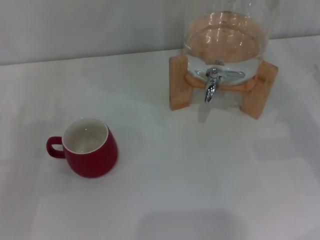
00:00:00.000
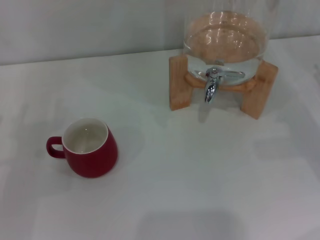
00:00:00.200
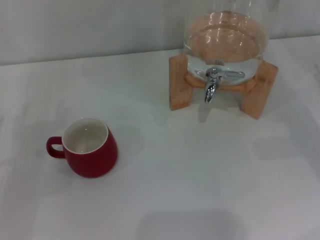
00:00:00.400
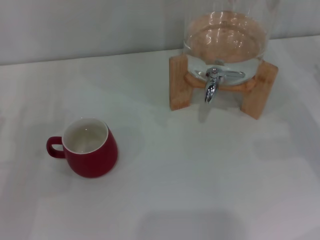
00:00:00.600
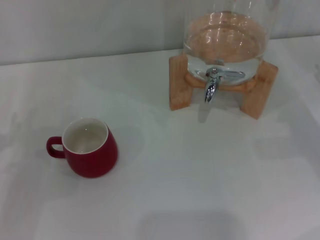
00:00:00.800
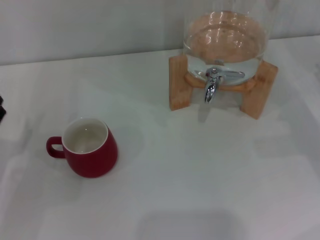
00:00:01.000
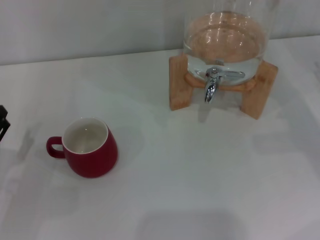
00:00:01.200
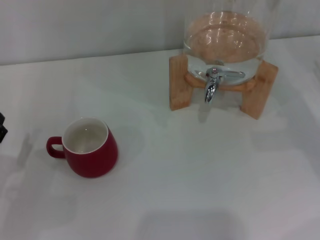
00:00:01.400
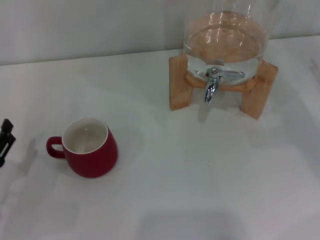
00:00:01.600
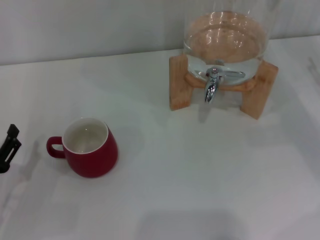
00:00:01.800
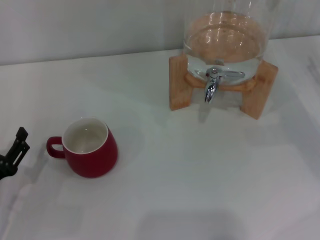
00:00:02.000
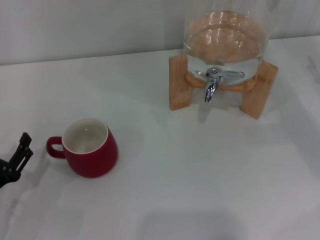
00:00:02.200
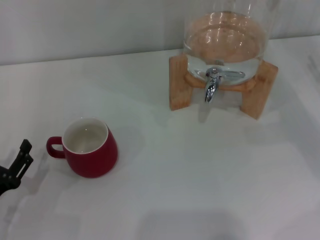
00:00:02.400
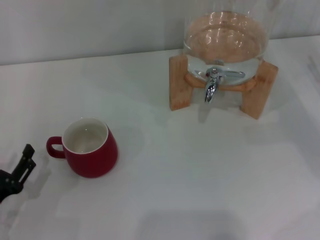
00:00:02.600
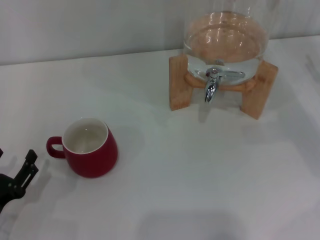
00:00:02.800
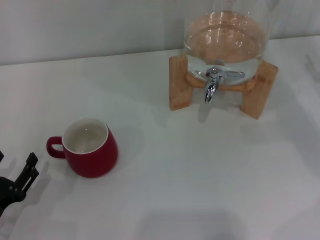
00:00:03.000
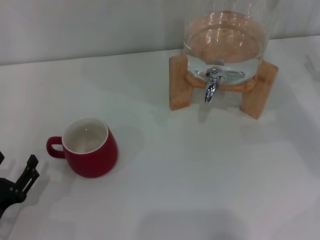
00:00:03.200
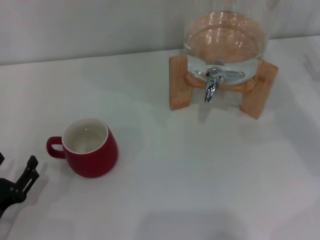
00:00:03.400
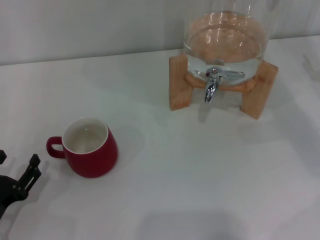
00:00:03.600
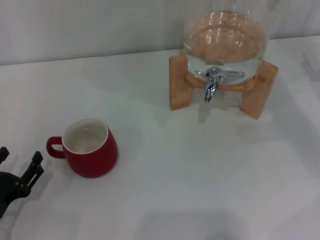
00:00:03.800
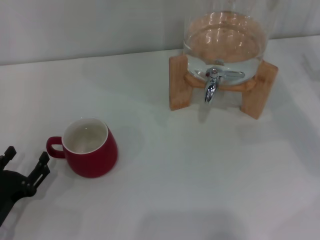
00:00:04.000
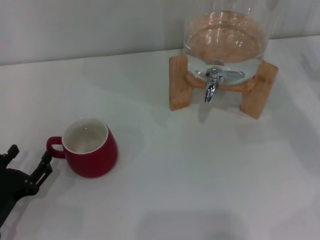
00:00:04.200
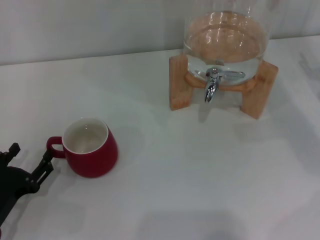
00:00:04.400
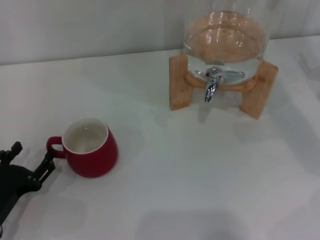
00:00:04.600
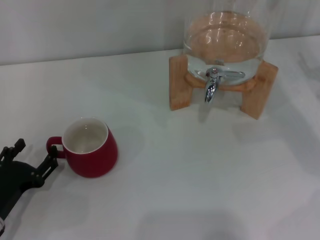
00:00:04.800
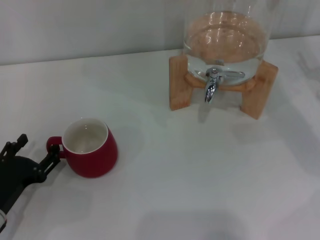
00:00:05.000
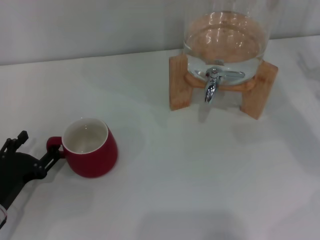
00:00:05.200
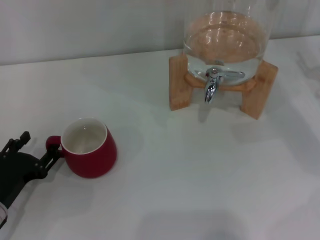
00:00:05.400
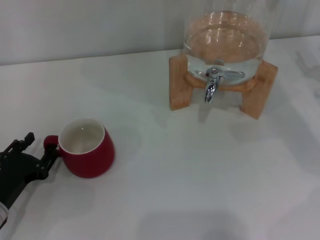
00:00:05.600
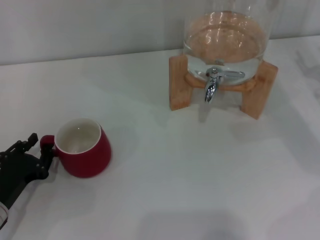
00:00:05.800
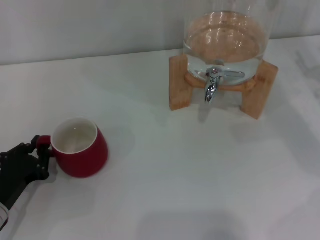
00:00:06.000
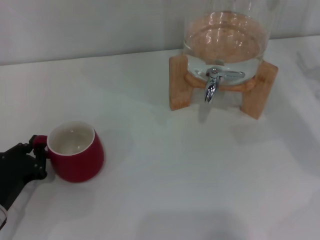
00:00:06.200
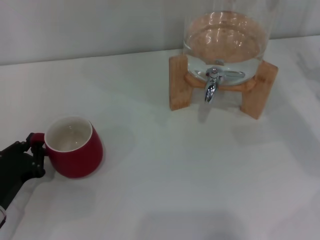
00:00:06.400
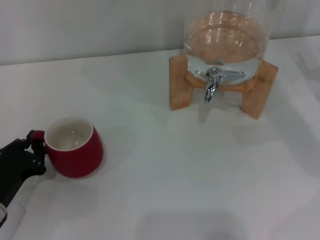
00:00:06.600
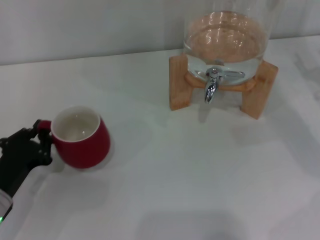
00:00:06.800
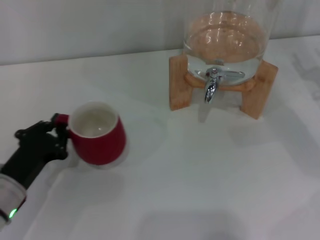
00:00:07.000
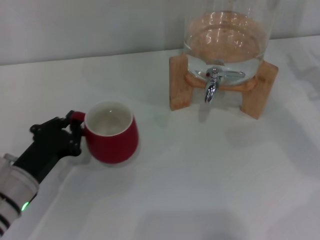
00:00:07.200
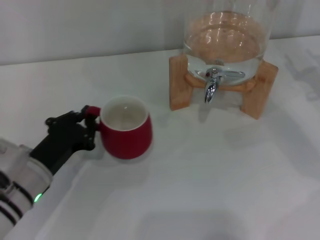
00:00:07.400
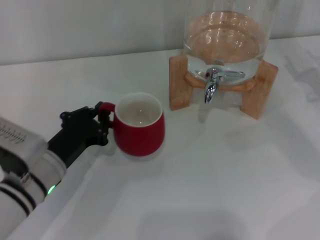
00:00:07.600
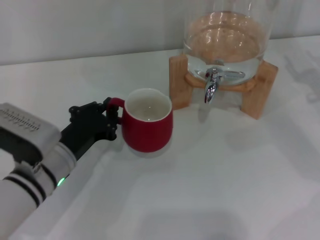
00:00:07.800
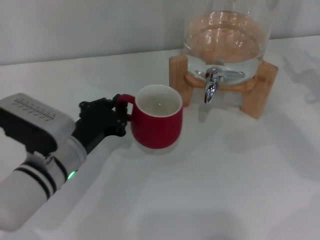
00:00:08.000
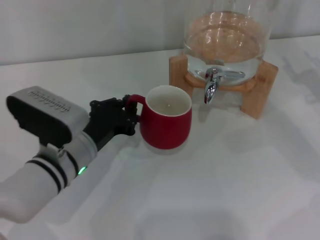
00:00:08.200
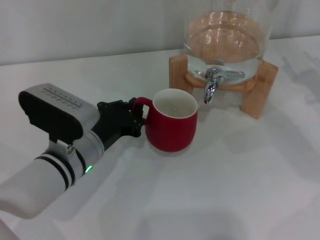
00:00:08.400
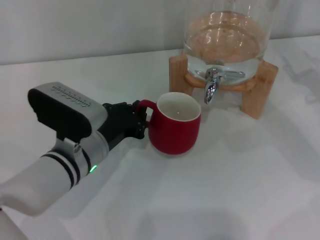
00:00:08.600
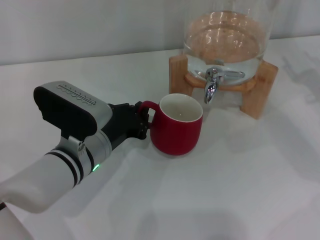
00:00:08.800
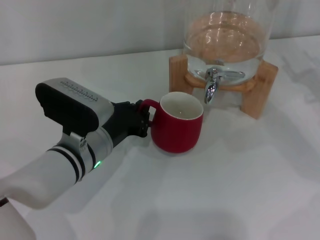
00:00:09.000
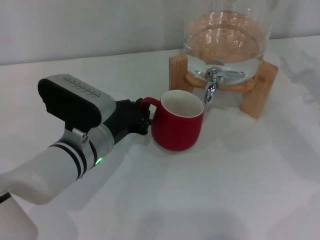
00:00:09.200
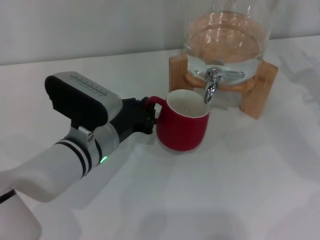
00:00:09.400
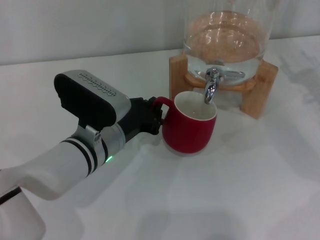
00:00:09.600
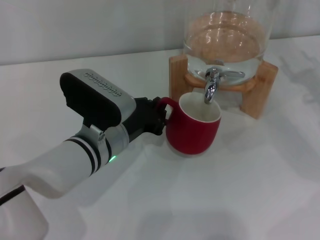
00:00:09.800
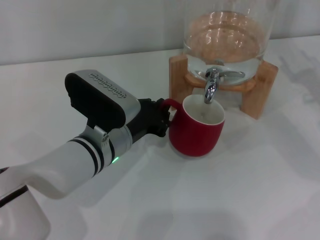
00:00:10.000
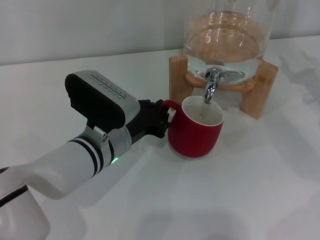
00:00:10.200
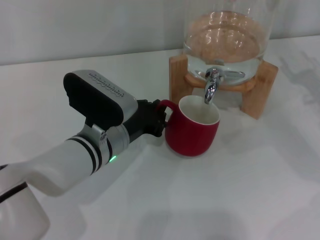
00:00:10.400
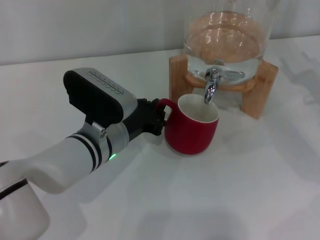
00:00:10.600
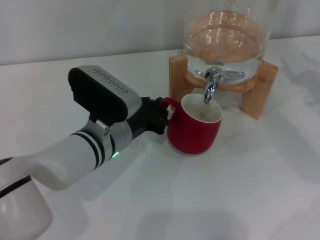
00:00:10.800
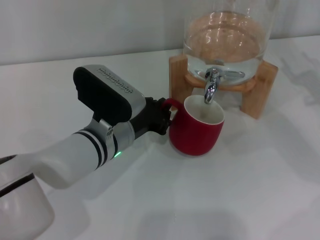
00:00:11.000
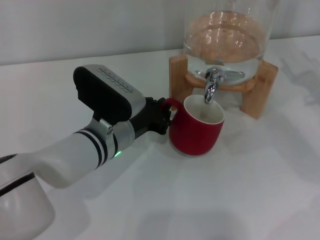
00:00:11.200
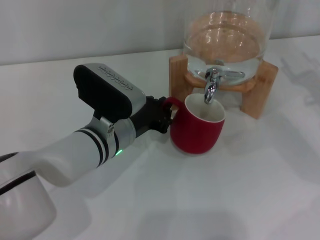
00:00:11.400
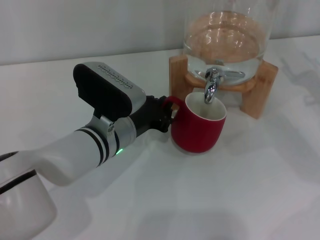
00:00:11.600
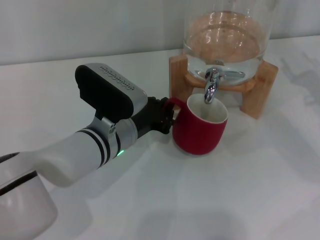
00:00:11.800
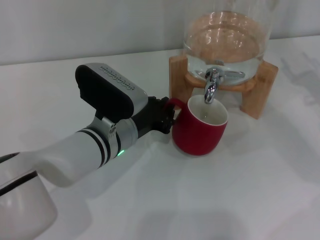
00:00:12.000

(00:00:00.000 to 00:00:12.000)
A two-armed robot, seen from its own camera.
Task of the whole recording: the left gripper pick up the red cup and place it horizontally under the faucet, the right gripper turn on the faucet to fill the cup, and then turn off the faucet.
00:00:01.600 - 00:00:04.400: The grippers make only small movements.
00:00:04.400 - 00:00:06.000: The left gripper closes up.
00:00:06.000 - 00:00:07.600: The left gripper travels to the right by approximately 10 cm, and closes.
00:00:07.600 - 00:00:09.000: The left gripper shifts roughly 5 cm to the right.
00:00:09.000 - 00:00:10.400: The grippers stay close to where they were, moving slightly.
00:00:10.400 - 00:00:12.000: Both grippers stay put.

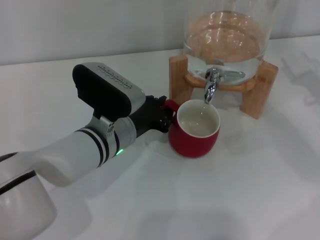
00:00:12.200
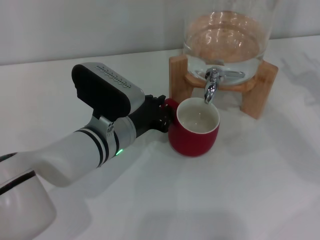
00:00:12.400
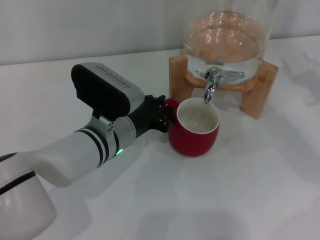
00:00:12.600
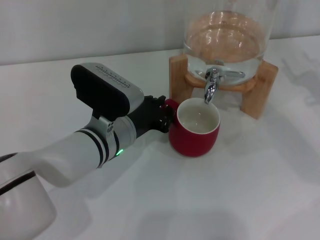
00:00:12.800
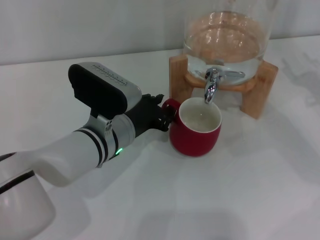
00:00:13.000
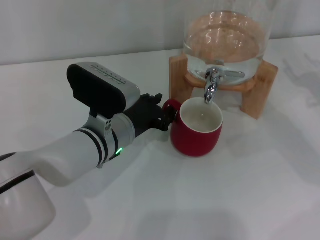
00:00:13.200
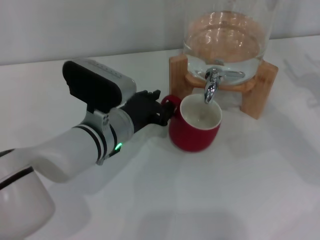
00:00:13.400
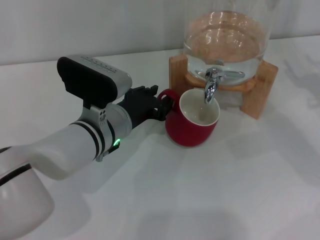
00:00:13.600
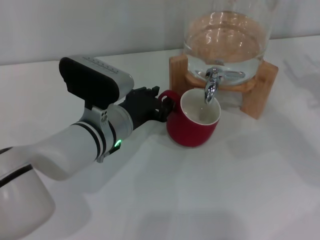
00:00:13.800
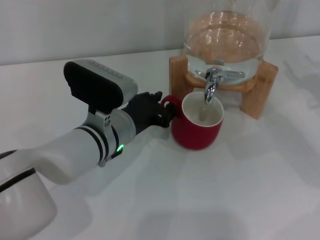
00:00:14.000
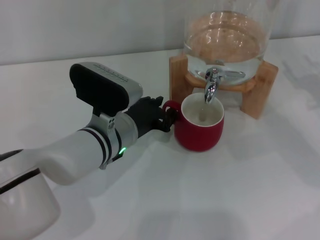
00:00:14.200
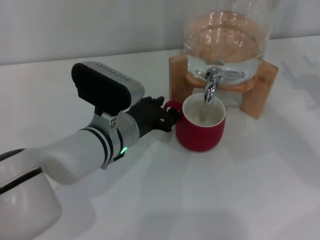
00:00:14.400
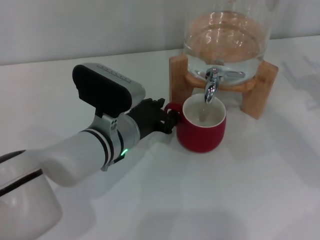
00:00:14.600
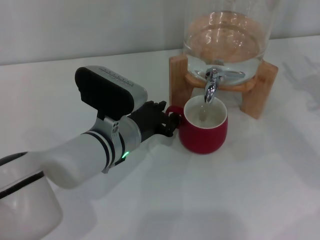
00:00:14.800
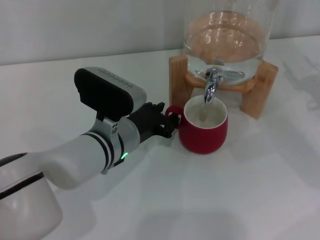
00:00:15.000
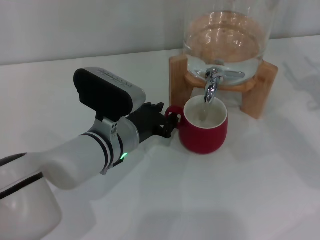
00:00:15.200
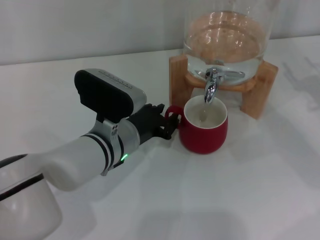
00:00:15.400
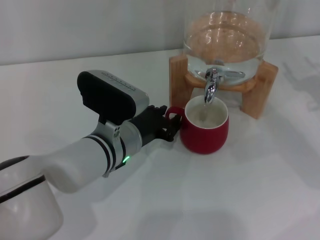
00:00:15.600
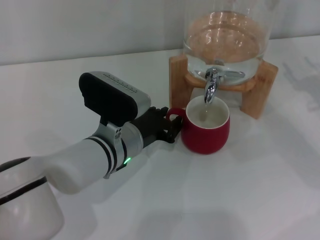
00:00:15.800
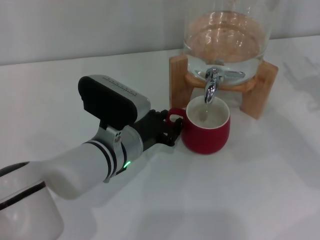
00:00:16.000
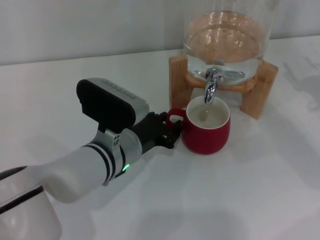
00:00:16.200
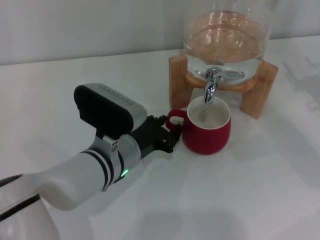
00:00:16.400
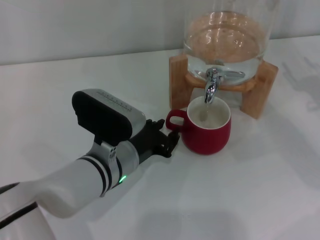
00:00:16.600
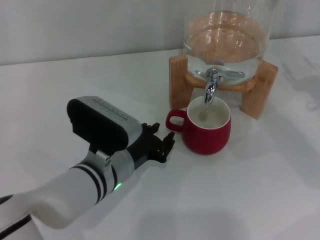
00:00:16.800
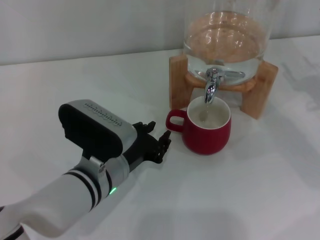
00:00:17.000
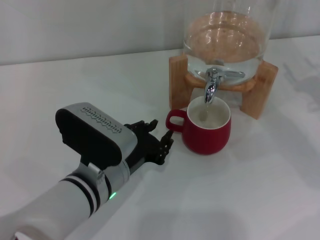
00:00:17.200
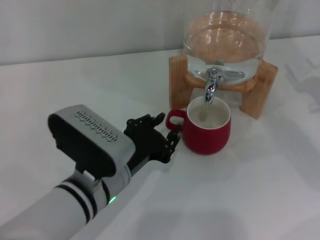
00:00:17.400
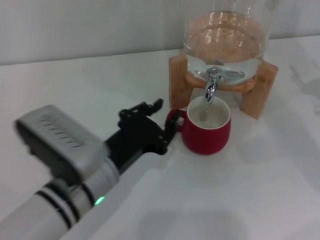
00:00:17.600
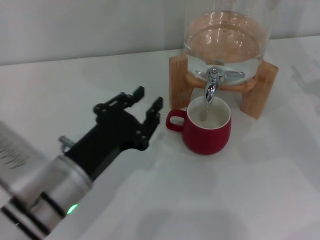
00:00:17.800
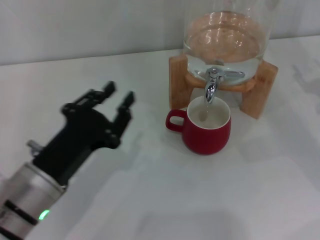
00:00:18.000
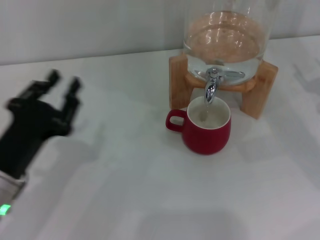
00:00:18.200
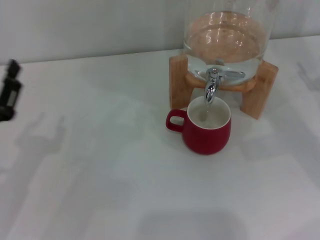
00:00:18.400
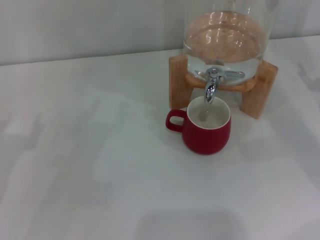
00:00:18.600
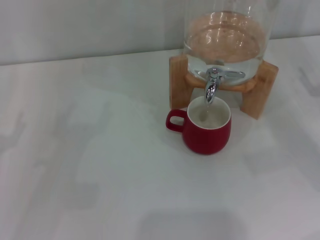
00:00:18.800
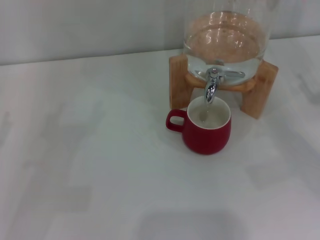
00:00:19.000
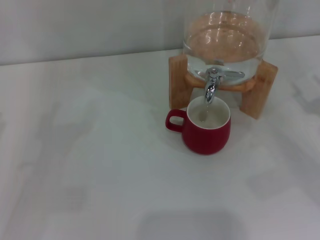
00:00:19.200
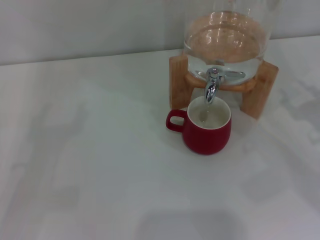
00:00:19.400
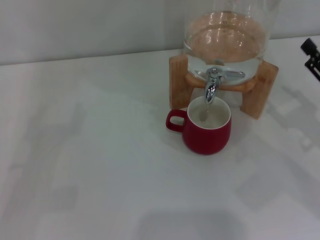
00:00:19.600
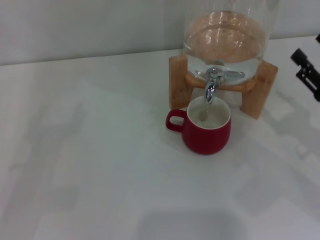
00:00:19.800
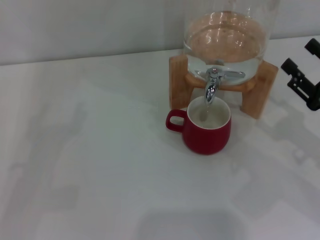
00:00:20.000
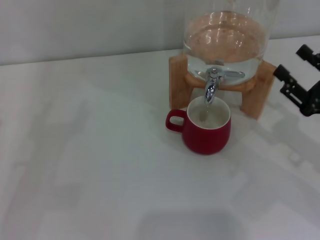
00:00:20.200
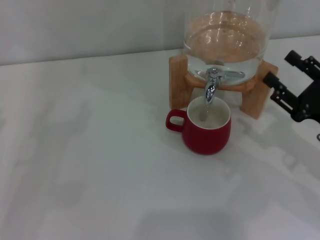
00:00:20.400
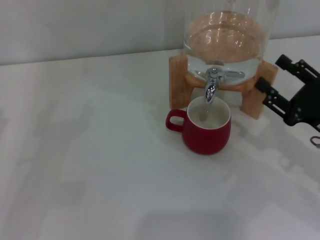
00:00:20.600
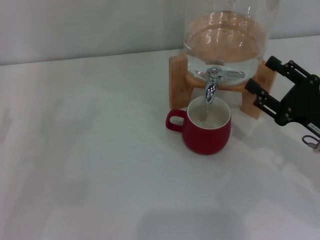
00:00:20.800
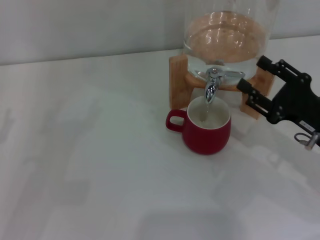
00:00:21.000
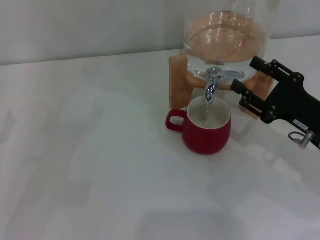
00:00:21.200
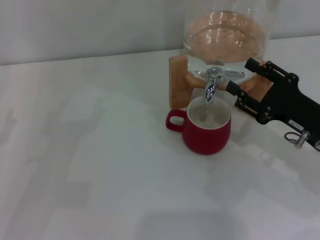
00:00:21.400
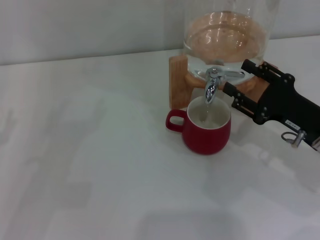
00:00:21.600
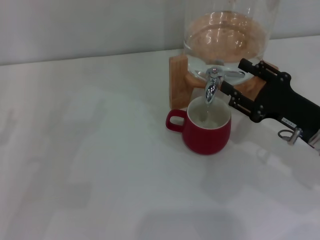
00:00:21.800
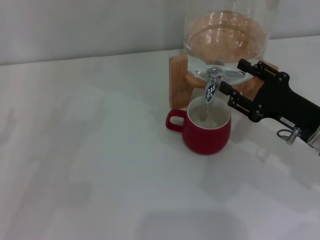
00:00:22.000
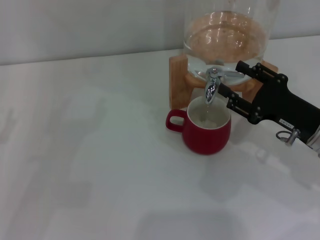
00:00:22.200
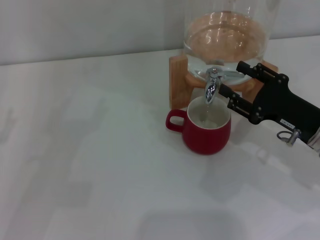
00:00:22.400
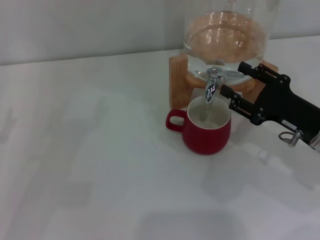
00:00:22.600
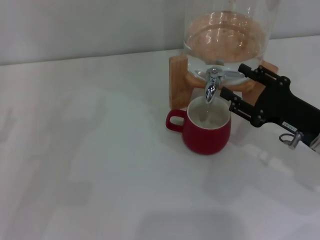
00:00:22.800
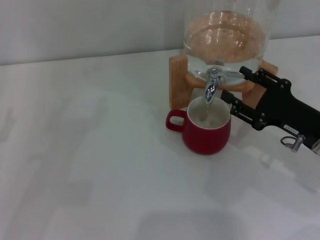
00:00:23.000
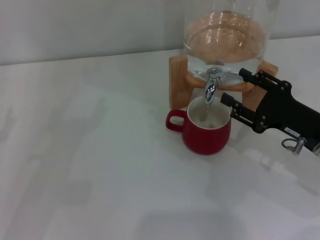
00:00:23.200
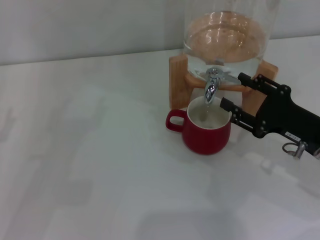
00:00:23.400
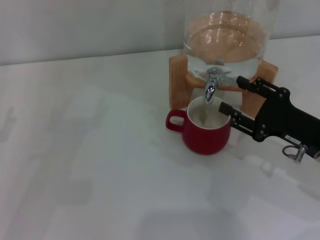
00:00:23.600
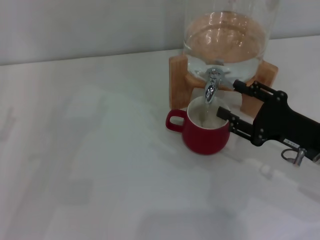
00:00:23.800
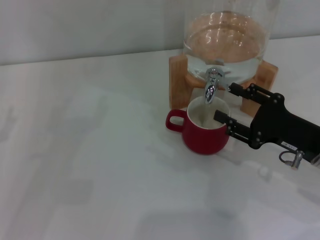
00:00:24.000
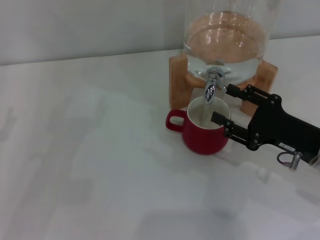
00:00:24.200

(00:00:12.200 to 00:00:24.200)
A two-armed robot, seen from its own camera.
Task of the whole recording: the left gripper pick up the red cup and place it horizontally under the faucet, the right gripper turn on the faucet to fill the cup, and then turn off the faucet.
Step, 00:00:12.200 - 00:00:16.600: Move the cup beneath the water dispenser nozzle with the left gripper.
00:00:12.200 - 00:00:16.600: The grippers make only small movements.
00:00:16.600 - 00:00:18.200: The left gripper shifts some 15 cm to the left.
00:00:18.200 - 00:00:19.800: The right gripper shifts roughly 5 cm backward. The left gripper is displaced to the left by some 15 cm, and opens.
00:00:19.800 - 00:00:21.200: The right gripper changes place by approximately 5 cm.
00:00:21.200 - 00:00:24.200: The grippers make only small movements.
